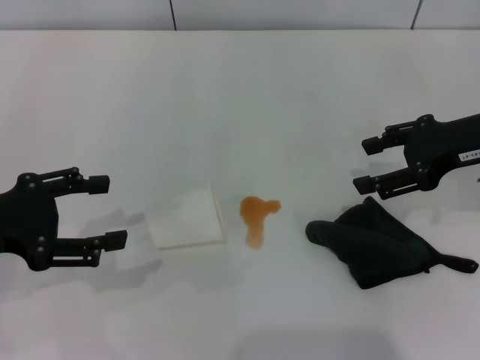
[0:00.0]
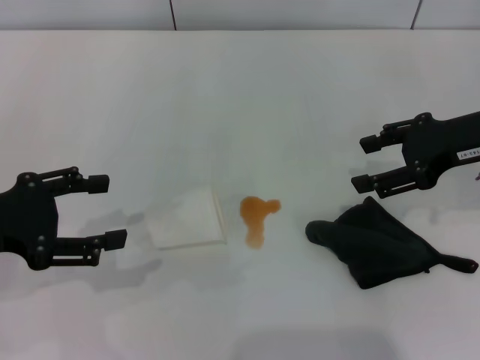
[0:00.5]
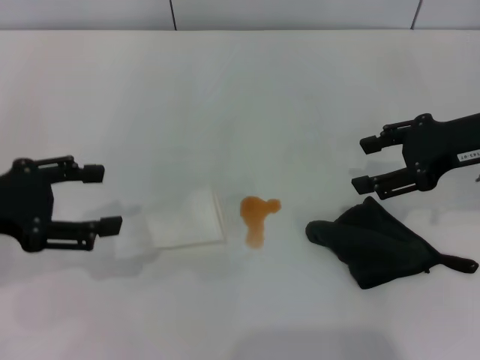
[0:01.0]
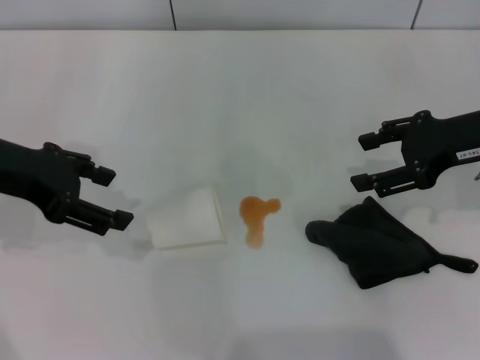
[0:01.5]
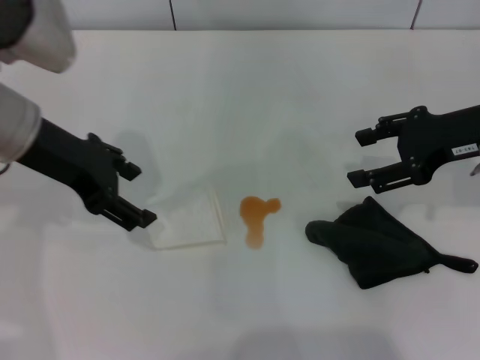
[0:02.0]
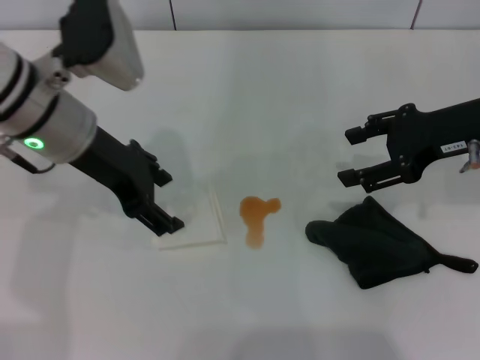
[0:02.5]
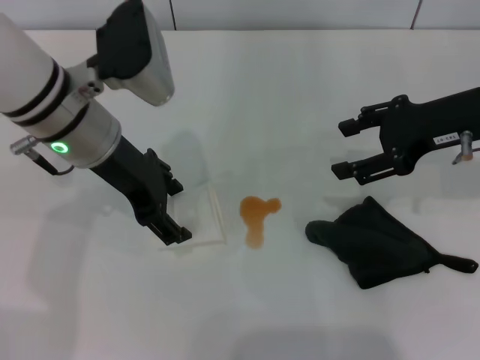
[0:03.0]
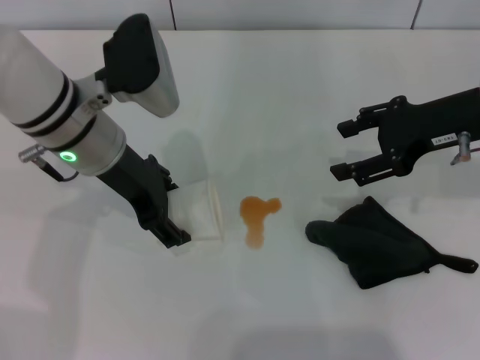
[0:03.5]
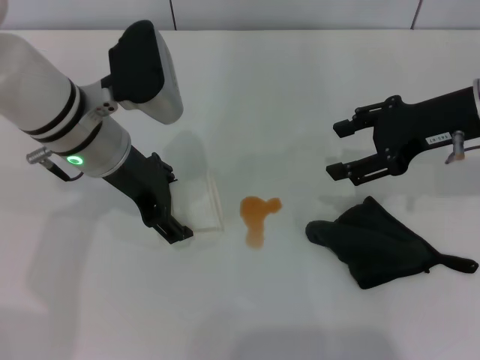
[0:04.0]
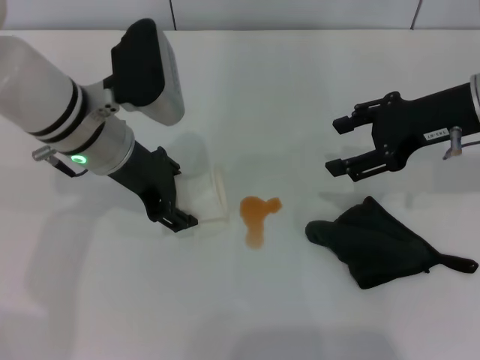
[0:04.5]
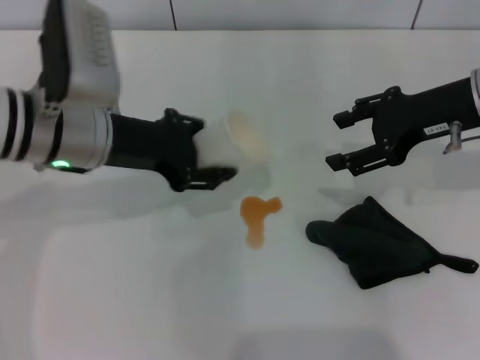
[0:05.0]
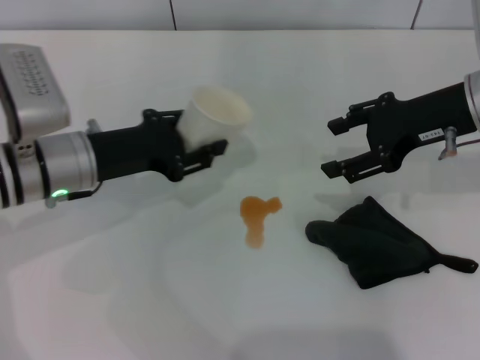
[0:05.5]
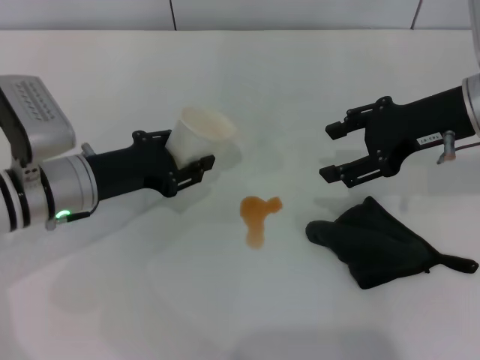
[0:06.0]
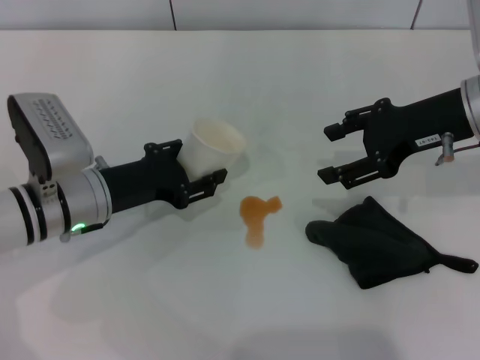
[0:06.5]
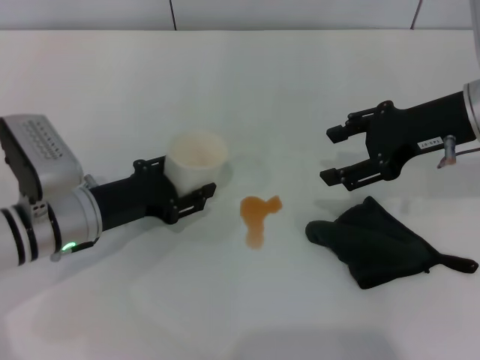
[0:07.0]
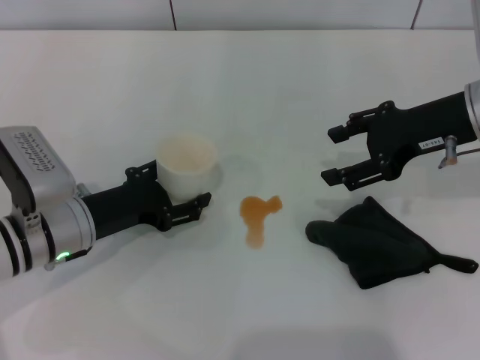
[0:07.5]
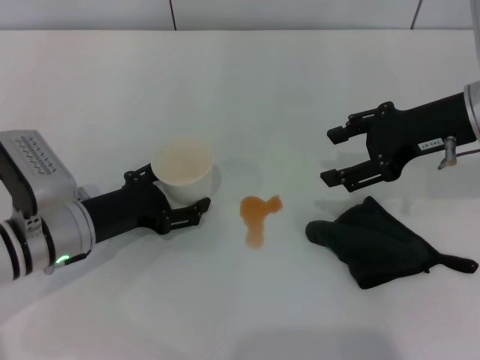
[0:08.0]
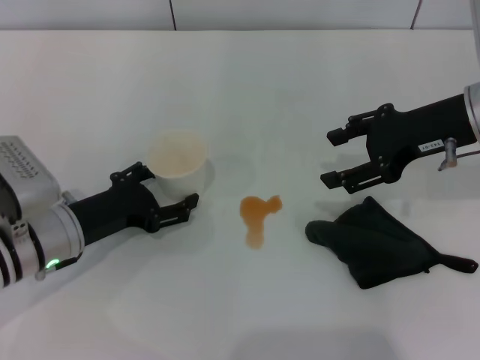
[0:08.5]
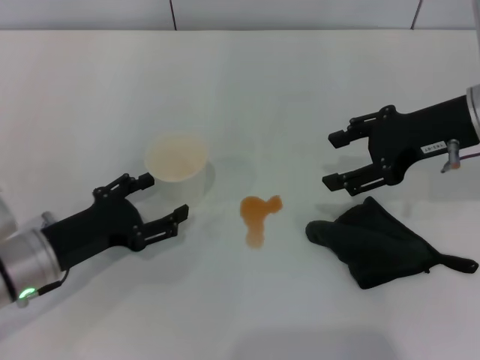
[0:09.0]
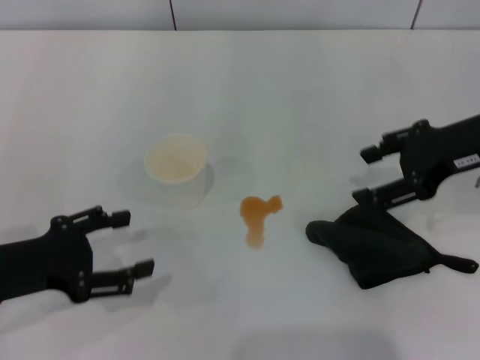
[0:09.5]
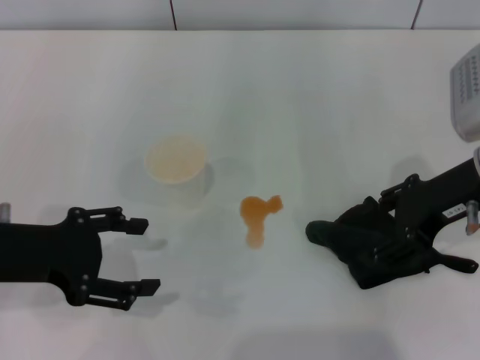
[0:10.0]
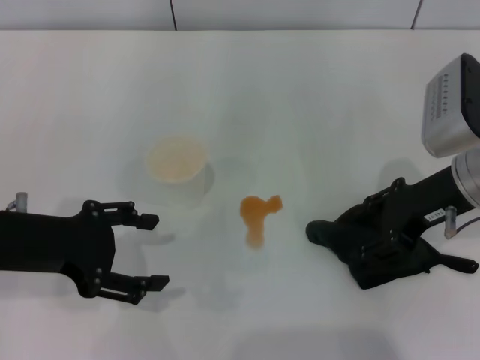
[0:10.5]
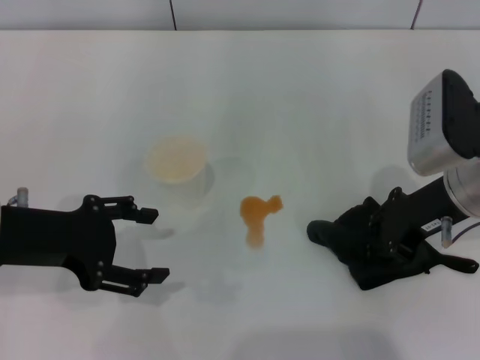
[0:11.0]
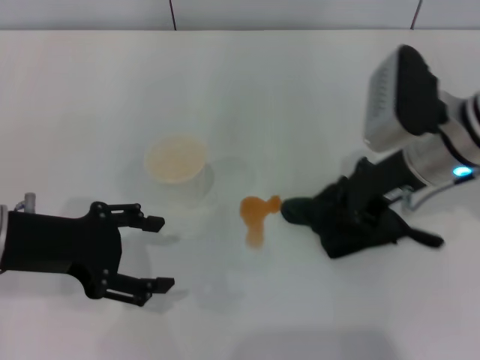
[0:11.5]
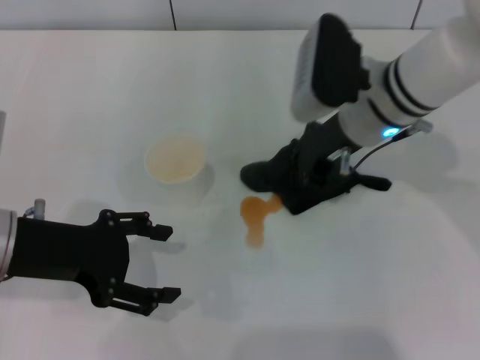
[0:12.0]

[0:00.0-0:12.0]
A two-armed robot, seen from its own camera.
Step, 0:00.0 to 0:04.0: Grasp the paper cup with the left gripper.
Step, 0:04.5 to 0:09.0: Stand the paper cup upright with the left gripper.
Step, 0:09.5 to 0:11.0: Grasp the rag with the right gripper.
0:00.0 to 0:02.0: The left gripper shifts some 15 cm forward, to the right and upward.
0:02.0 to 0:04.0: The left gripper is displaced to the right and downward by about 10 cm.
0:04.0 to 0:06.0: The left gripper is displaced downward and to the left by about 10 cm, and closes up.
0:06.0 to 0:08.0: The left gripper opens up.
0:08.0 to 0:10.0: The left gripper travels upward and to the left by about 10 cm.
0:10.0 to 0:12.0: The right gripper goes about 15 cm to the left and forward, and closes up.

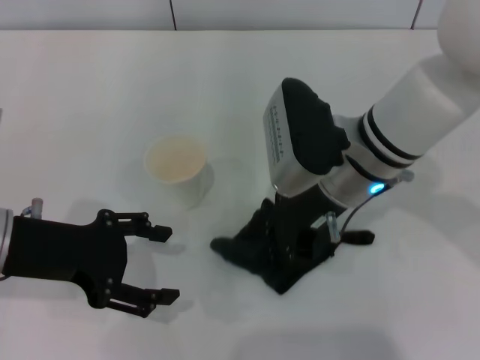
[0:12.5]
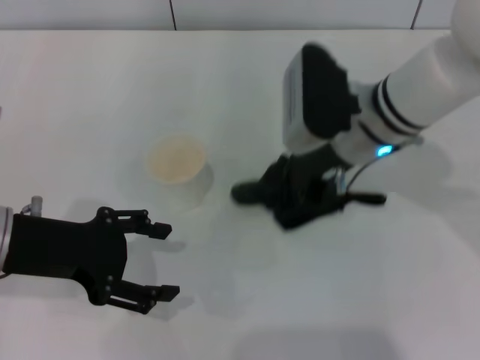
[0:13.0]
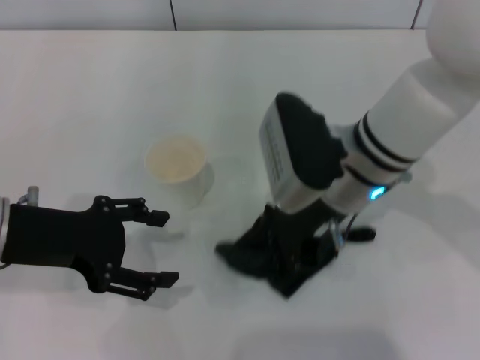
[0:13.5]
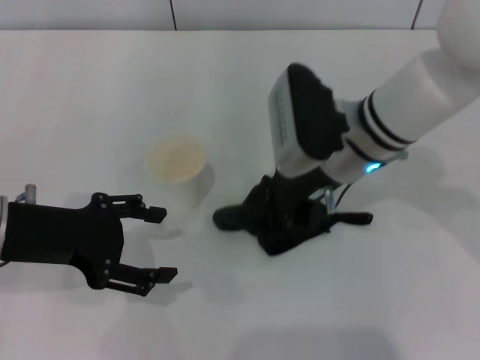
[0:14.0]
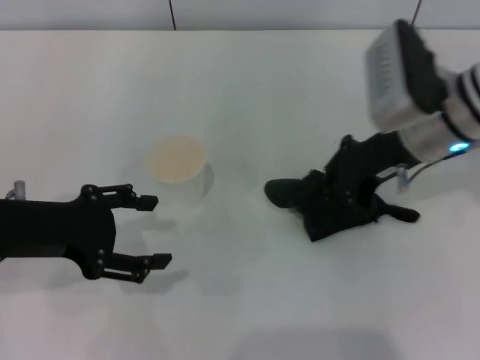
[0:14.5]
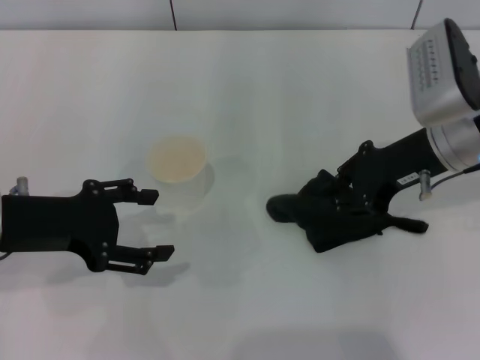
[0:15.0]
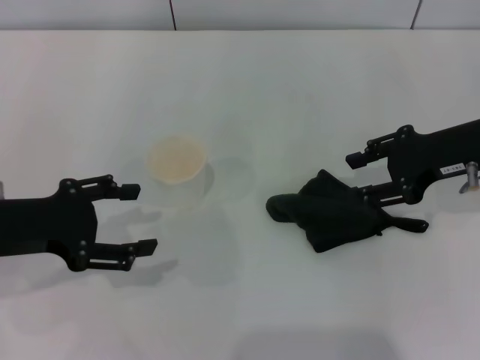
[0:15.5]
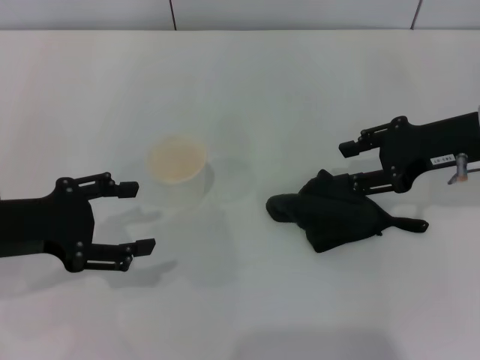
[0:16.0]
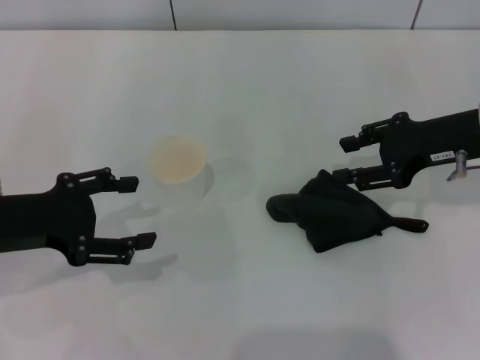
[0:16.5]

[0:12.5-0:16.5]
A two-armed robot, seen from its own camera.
Step, 0:12.5 to 0:14.5: Wipe the stains off the table with the right gripper.
0:12.5 to 0:14.5: The right gripper shifts about 10 cm to the right.
0:14.5 to 0:16.5: The right gripper heads to the right, covering some 10 cm, and opens.
